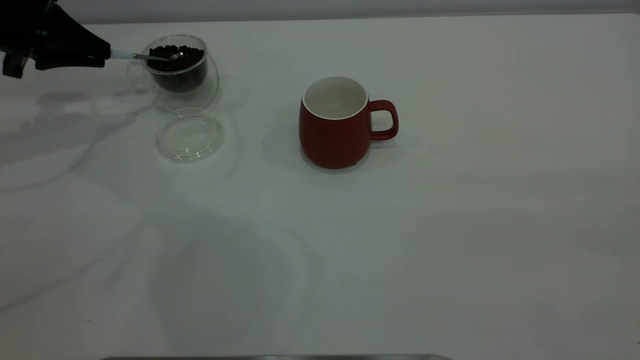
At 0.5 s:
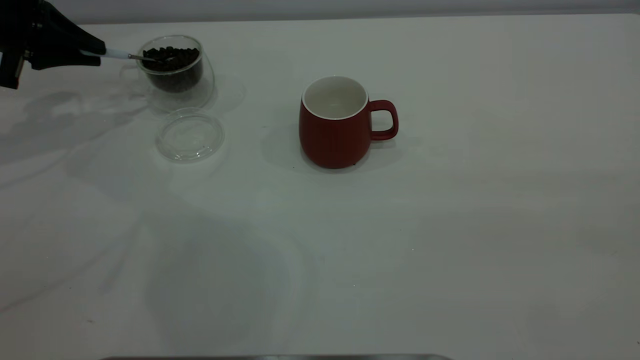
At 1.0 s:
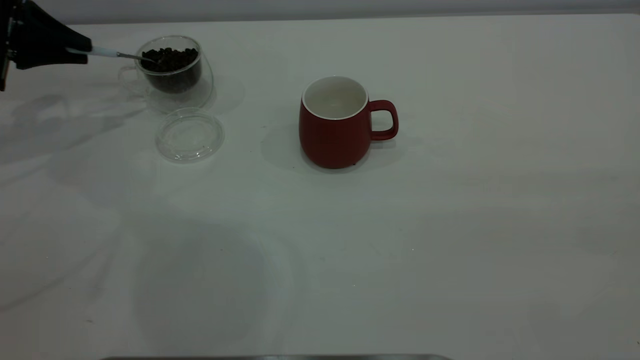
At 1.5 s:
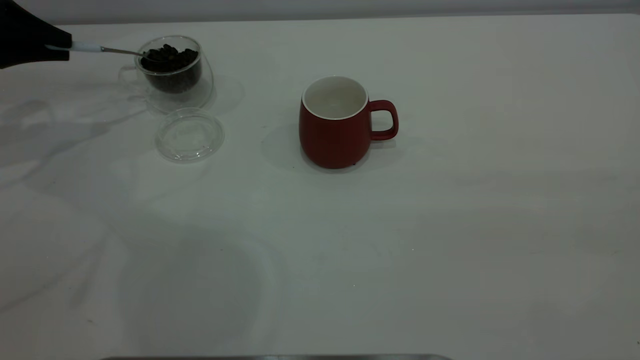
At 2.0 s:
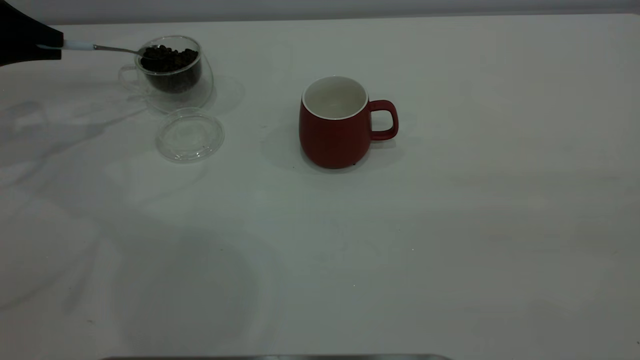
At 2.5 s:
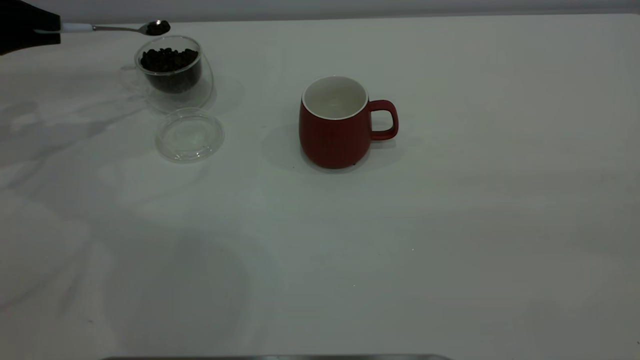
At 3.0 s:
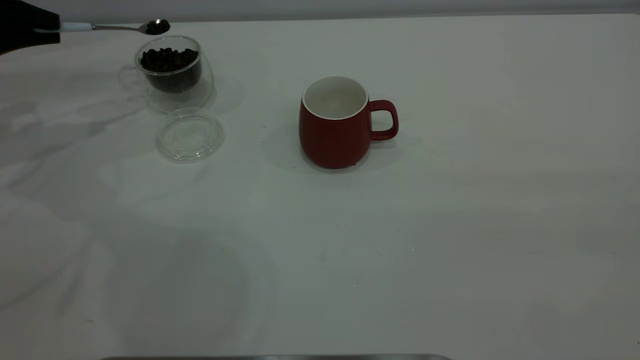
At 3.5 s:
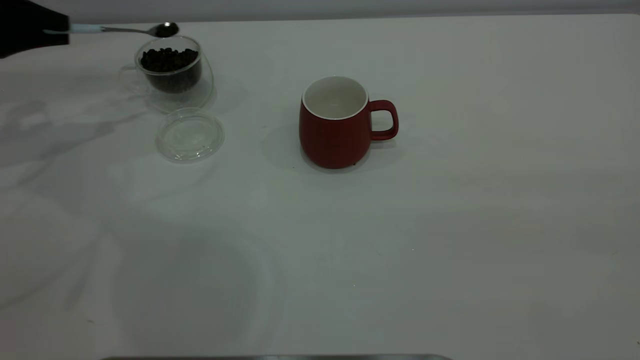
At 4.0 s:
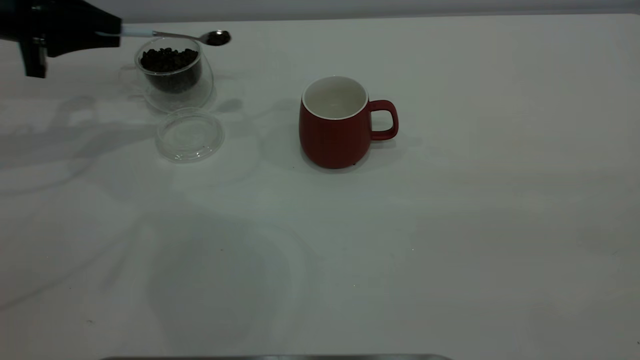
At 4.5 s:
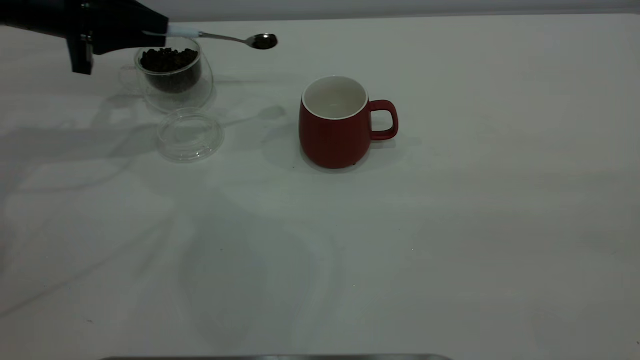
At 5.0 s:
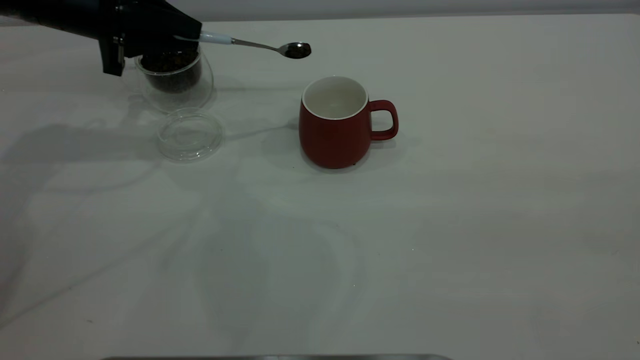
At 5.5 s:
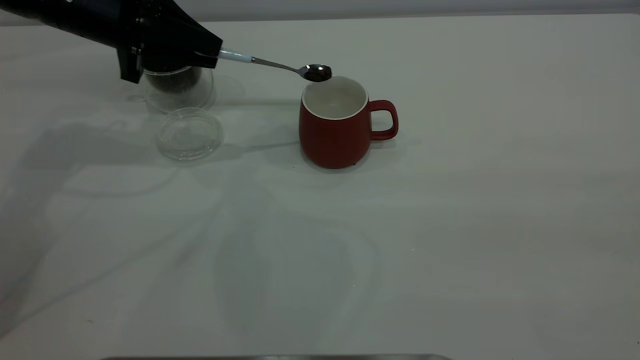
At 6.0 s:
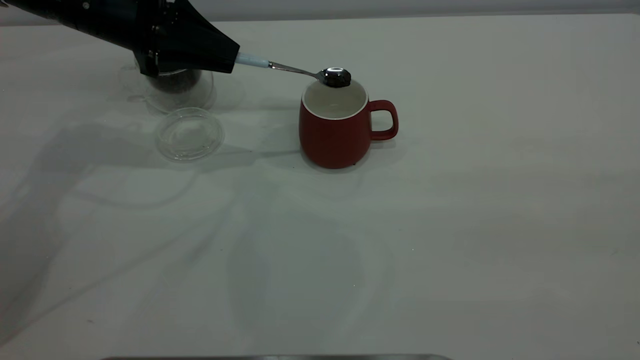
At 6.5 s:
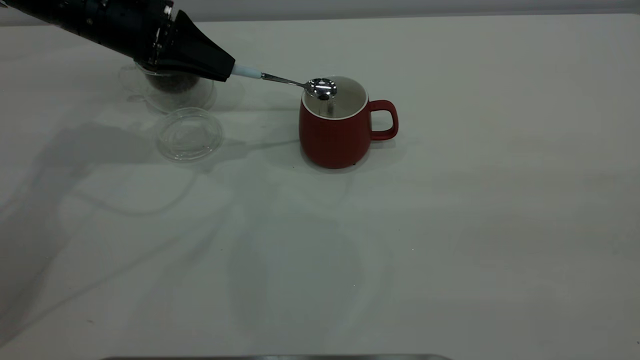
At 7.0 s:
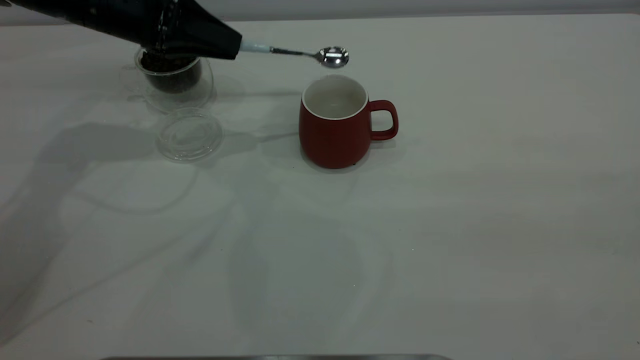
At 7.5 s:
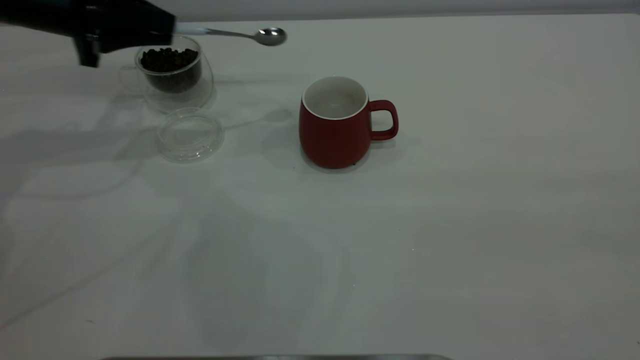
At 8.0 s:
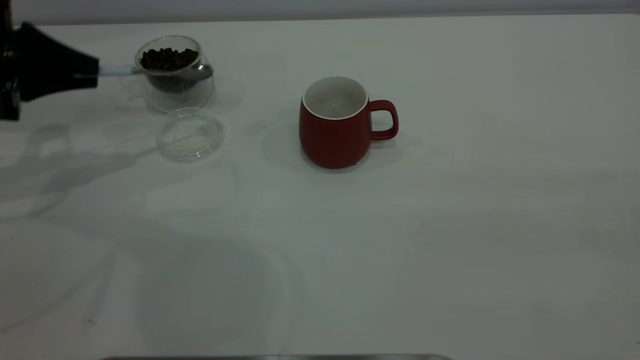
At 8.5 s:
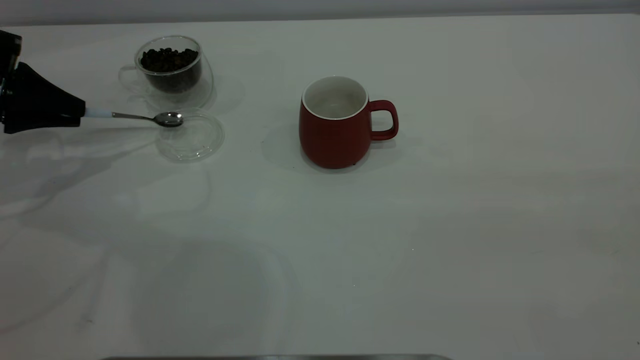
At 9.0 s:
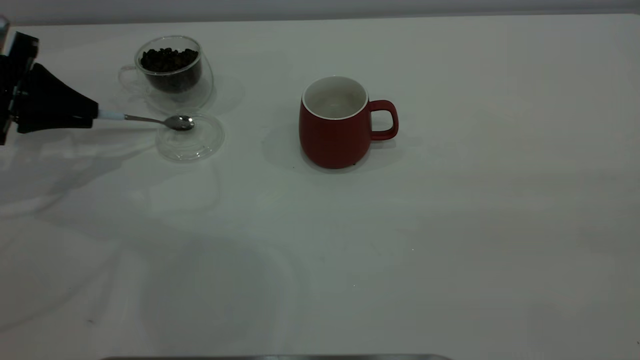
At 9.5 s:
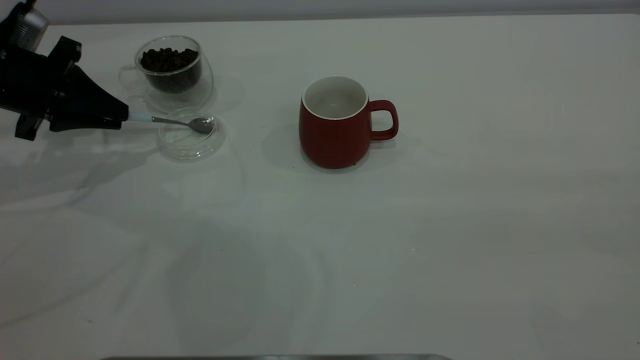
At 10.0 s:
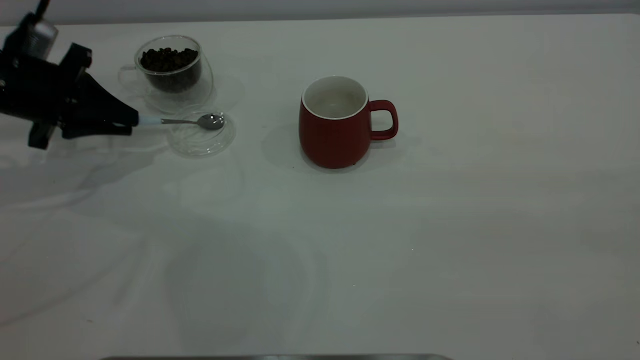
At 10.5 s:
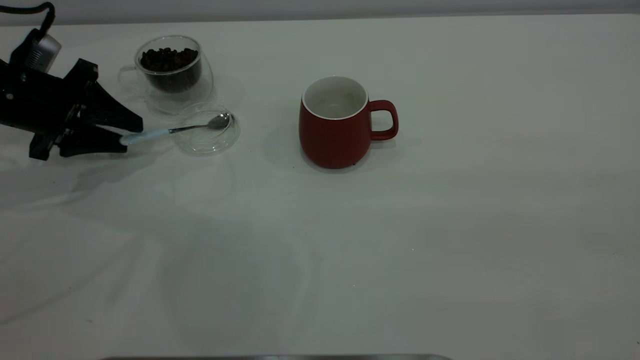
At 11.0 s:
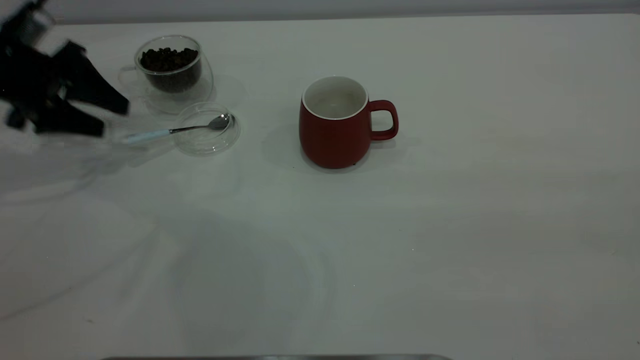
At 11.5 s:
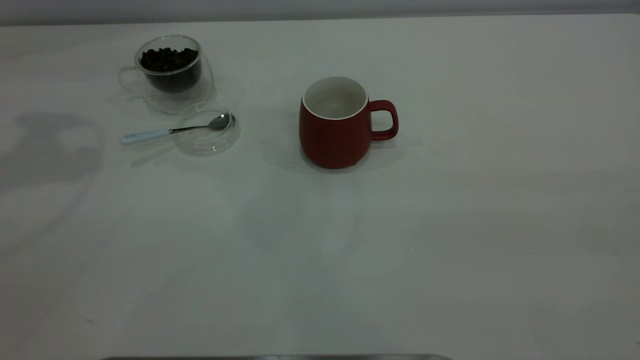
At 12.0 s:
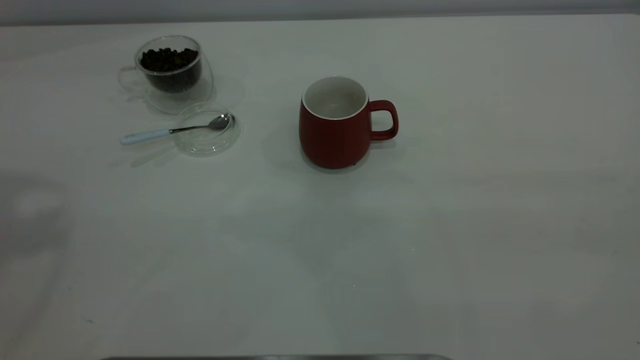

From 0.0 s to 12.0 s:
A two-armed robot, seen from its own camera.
Task of the whole recording: the right gripper place the red cup in the center of the table, the left gripper take the blue spoon from the cup lid and scoop out the coffee beans from the coffee cup and put them into the red cup, the left gripper put the spoon back into the cup lid.
Step, from 0.0 s to 7.0 s: Scoop a spoonful of beans into the cup.
Step, from 7.5 s to 10.5 s: Place the spoon back in its original place.
From 0.0 s to 2.0 s: There are only small adjustments of the grippers.
From 2.0 s to 4.0 s: The left gripper is displaced to the right by approximately 5 cm.
From 4.0 s to 6.0 s: The left gripper travels to the right by some 10 cm.
From 6.0 s to 8.0 s: The left gripper heads to the left, covering approximately 15 cm.
From 8.0 s to 10.0 s: The left gripper changes place by about 5 cm.
From 10.0 s to 12.0 s: The left gripper travels upward by about 35 cm, and opens its fingers.
